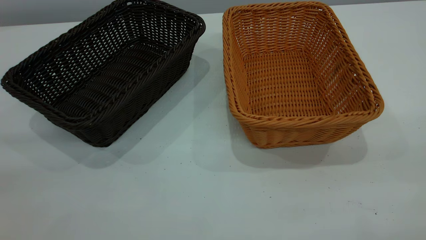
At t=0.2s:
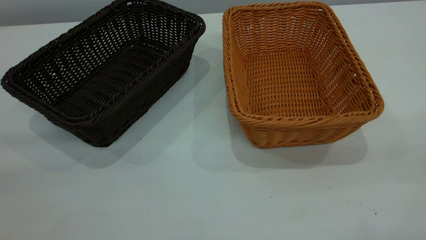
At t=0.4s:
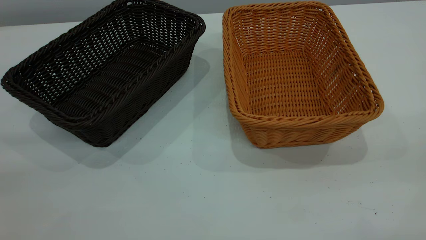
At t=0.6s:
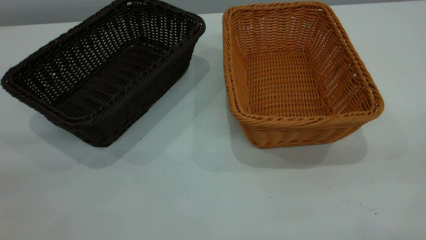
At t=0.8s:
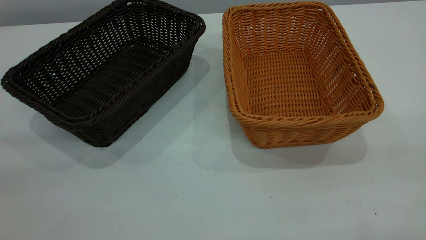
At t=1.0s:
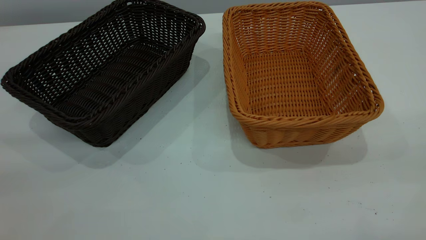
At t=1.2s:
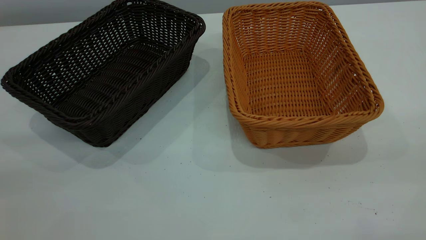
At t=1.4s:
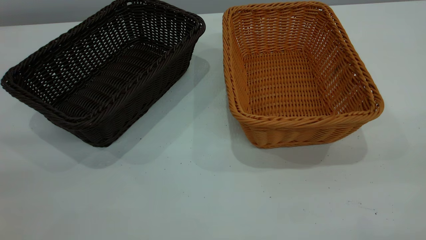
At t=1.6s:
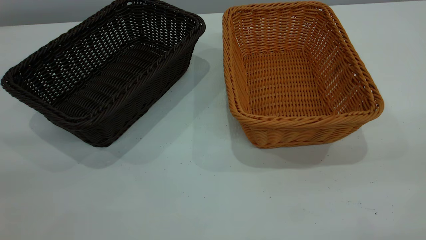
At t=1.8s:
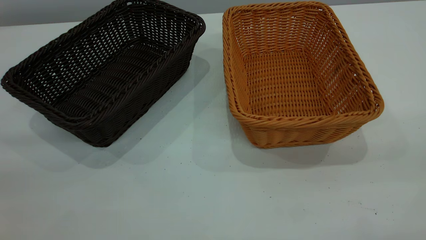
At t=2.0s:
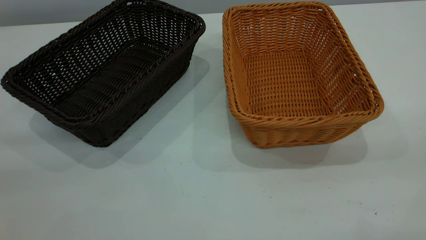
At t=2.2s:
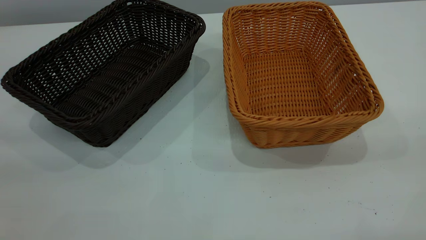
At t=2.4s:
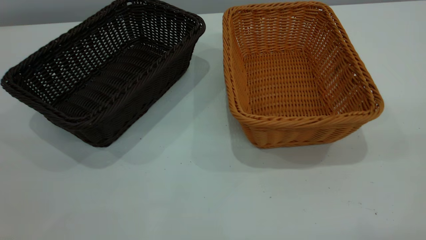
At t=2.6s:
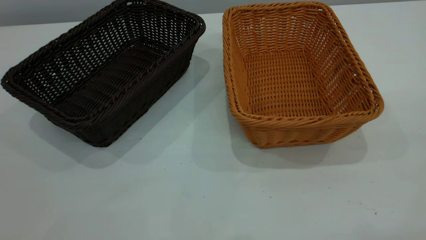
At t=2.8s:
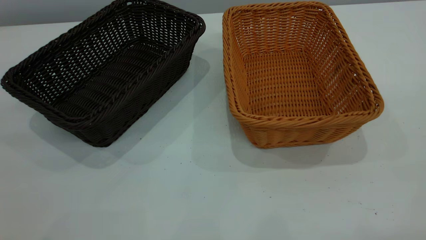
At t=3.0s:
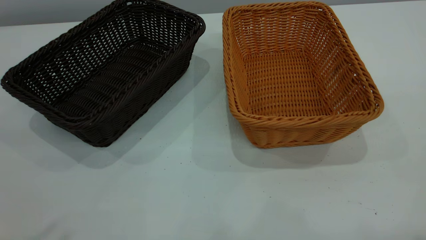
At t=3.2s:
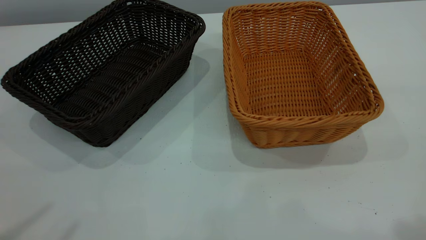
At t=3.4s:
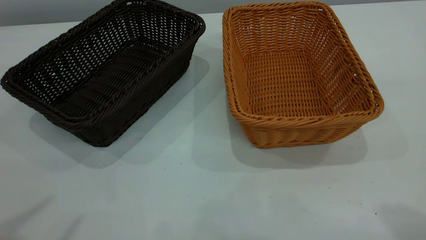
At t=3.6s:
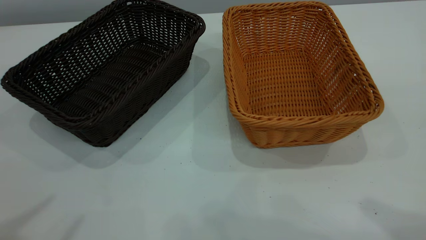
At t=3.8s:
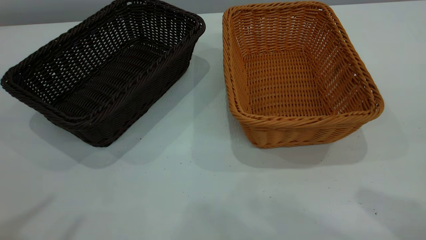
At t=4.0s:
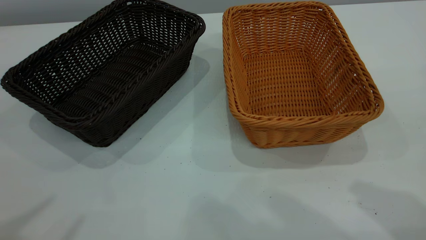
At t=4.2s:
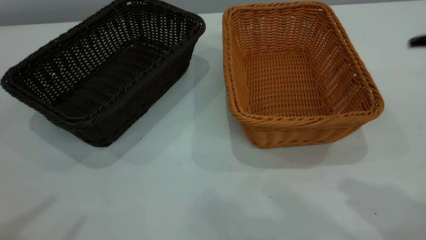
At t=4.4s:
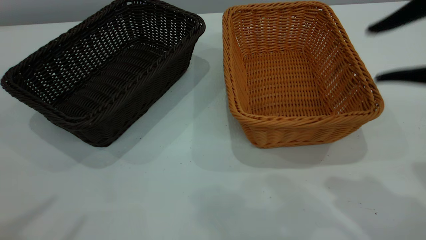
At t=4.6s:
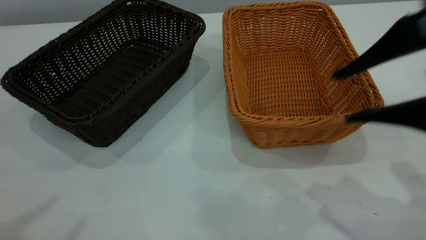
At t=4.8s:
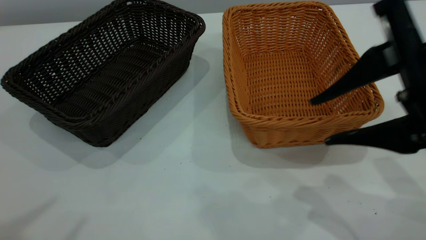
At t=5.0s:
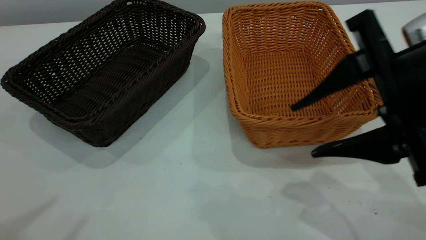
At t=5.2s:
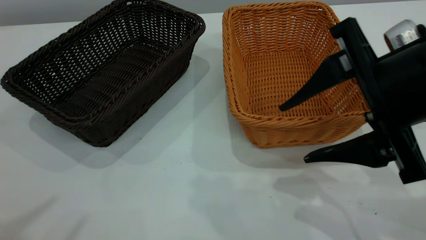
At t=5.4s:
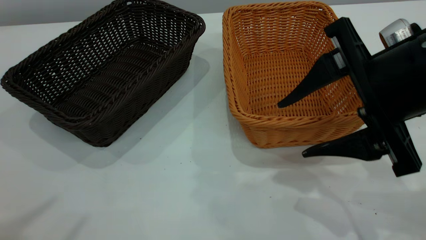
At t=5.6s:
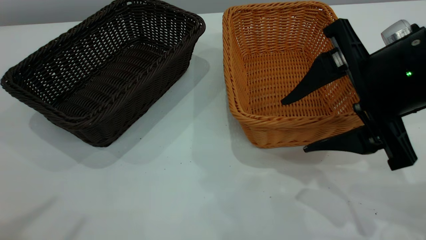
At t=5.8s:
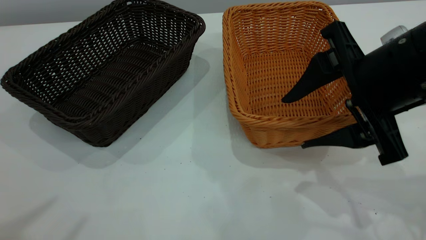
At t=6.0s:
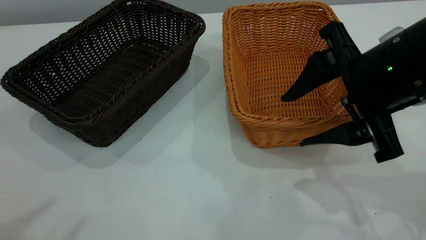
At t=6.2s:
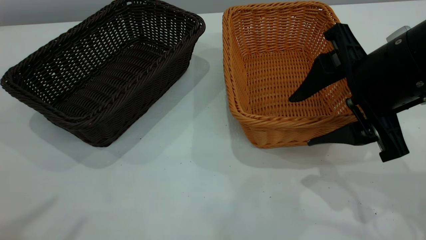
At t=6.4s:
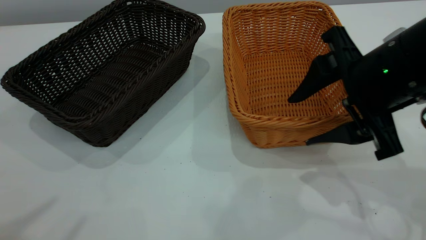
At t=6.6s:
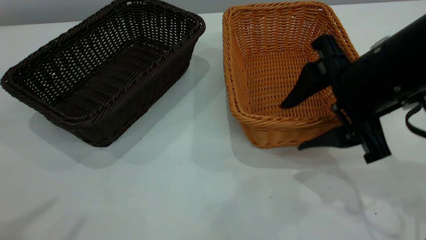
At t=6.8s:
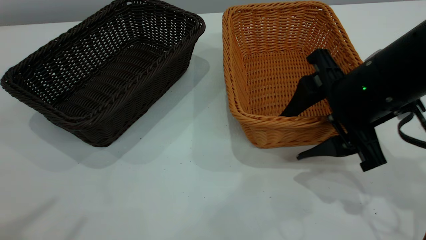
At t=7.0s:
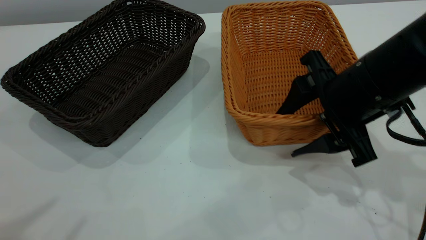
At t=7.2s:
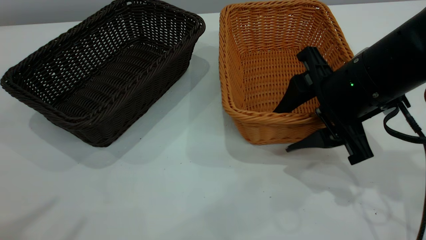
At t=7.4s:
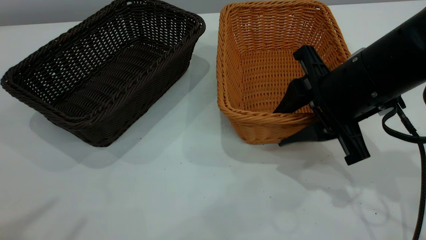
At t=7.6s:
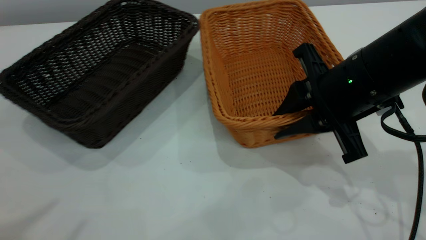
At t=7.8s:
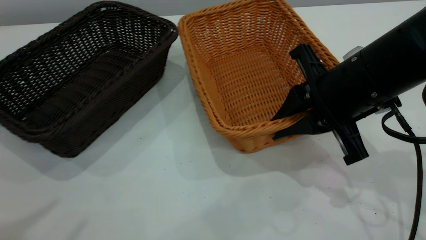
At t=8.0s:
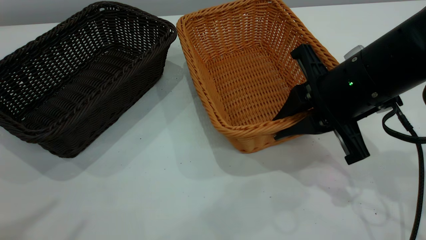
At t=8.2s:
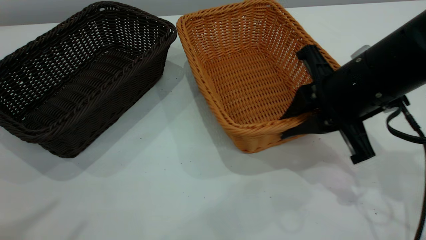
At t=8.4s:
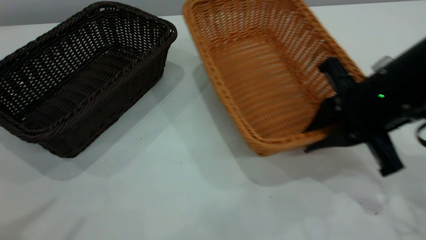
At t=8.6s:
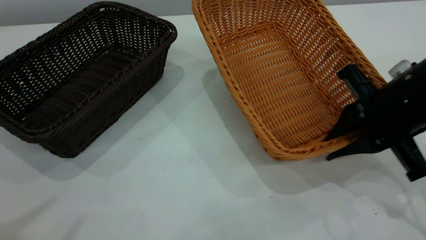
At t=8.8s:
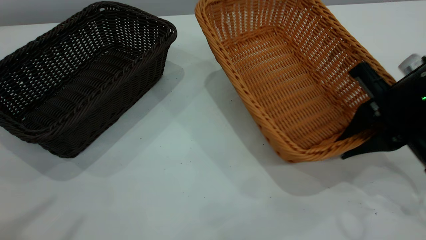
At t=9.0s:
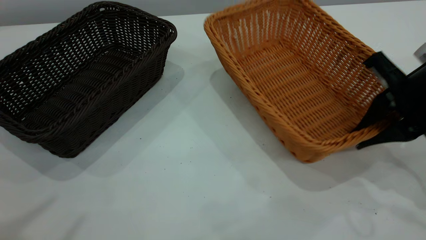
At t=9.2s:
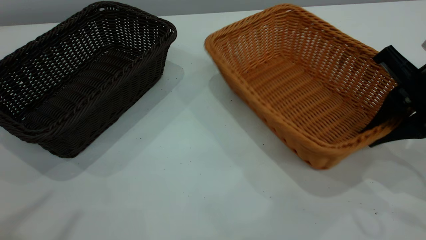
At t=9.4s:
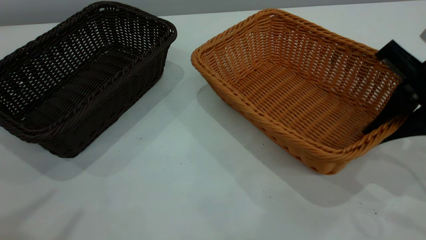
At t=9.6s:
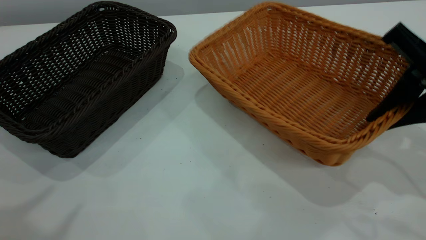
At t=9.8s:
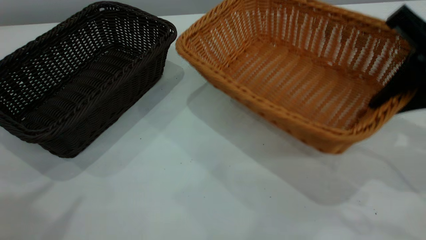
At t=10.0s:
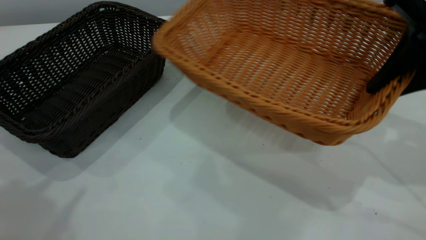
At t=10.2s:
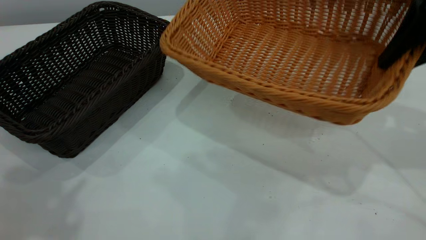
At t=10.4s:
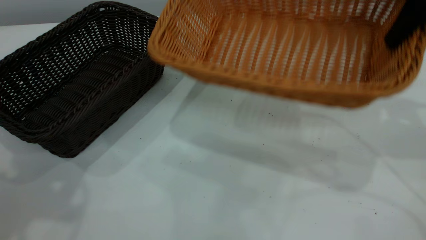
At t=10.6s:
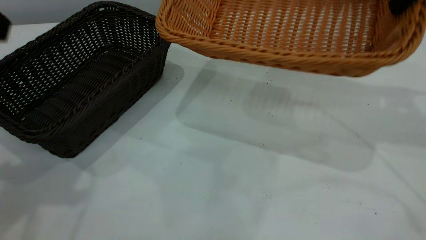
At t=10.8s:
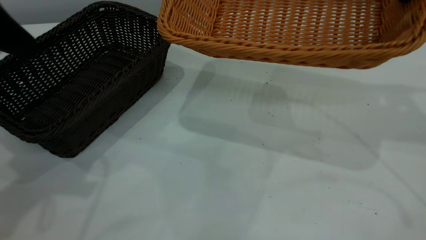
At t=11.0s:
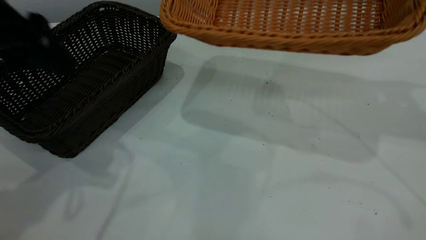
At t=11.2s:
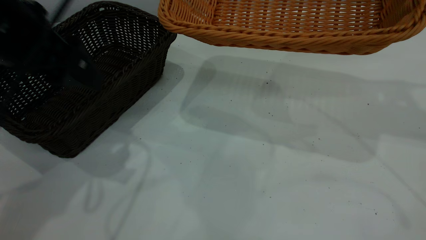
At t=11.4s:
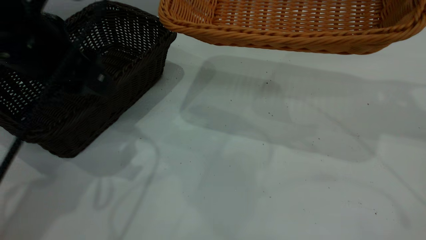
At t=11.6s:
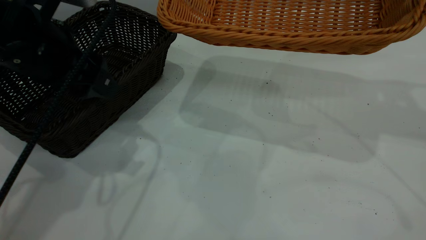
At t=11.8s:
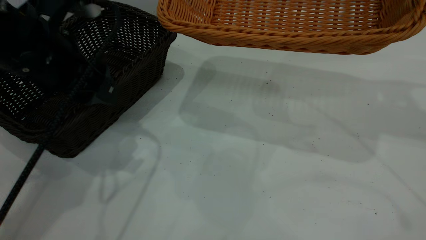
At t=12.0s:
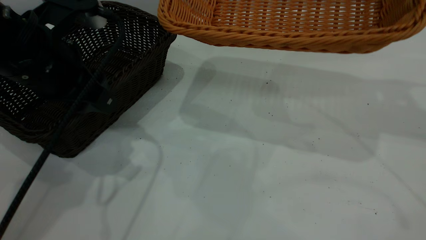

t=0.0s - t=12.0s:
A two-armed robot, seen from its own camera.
Task of the whole recording: the left gripper grasp the black basket and place it in the center of the table, the right gripper grasp the brown basket and place it inside the black one.
Step, t=0.0s - t=9.8s: Pick up the light basket with the right gripper.
t=0.0s - t=1.6s: Both grippers stay put.
t=3.0s - t=4.4s: The right gripper shifts approximately 15 cm downward and forward.
t=4.4s - t=6.0s: The right gripper shifts some 10 cm downward and forward.
t=6.0s - t=7.6s: The right gripper closes its fingers.
t=7.6s - t=9.0s: The right gripper heads to the right, covering about 10 cm.
t=9.0s - t=10.4s: The right gripper heads upward, covering roughly 15 cm. The left gripper shifts some 10 cm forward and downward.
t=10.4s - t=12.0s: The right gripper changes place by approximately 5 cm, while the left gripper is displaced downward, forward and to the right by approximately 20 cm.

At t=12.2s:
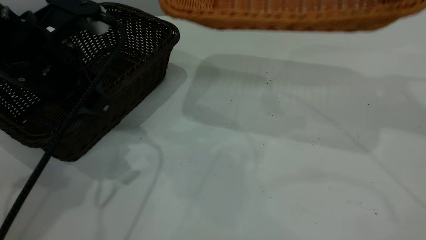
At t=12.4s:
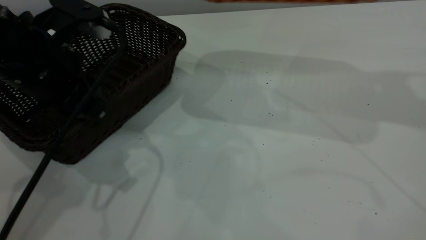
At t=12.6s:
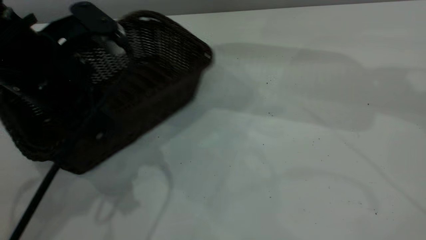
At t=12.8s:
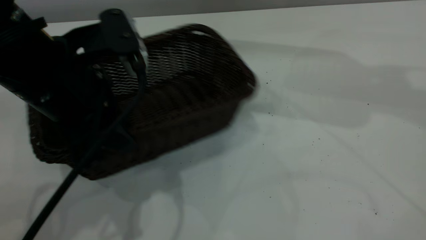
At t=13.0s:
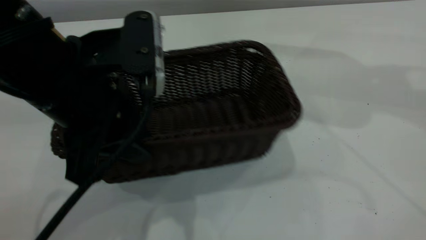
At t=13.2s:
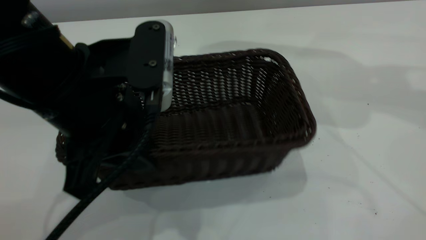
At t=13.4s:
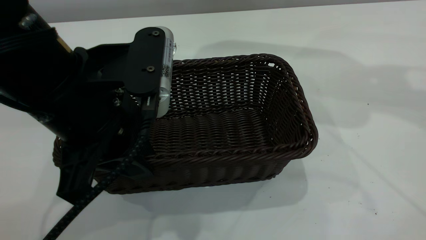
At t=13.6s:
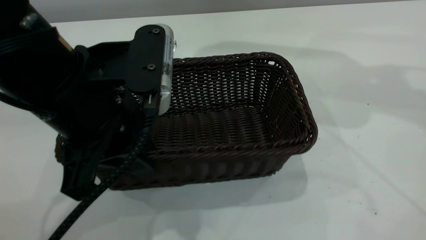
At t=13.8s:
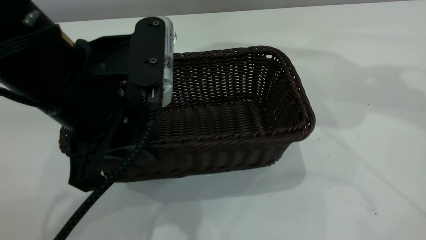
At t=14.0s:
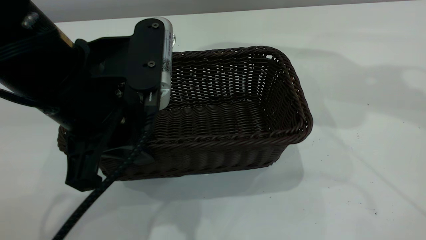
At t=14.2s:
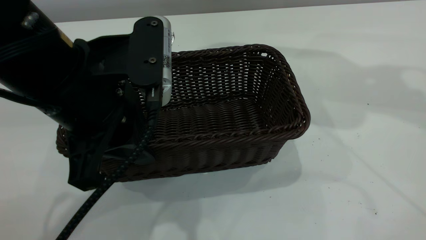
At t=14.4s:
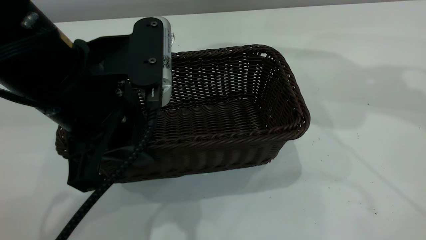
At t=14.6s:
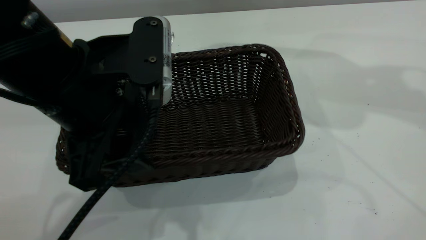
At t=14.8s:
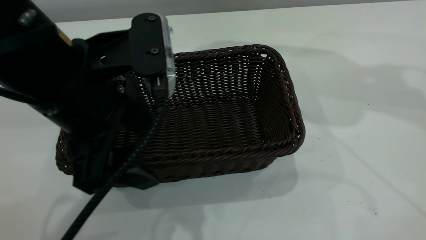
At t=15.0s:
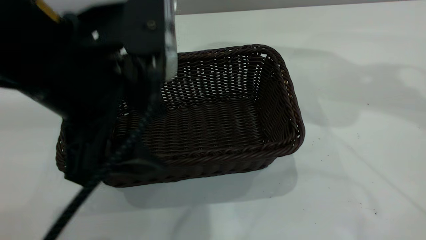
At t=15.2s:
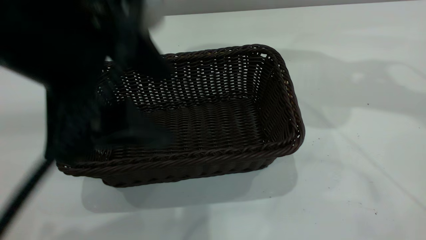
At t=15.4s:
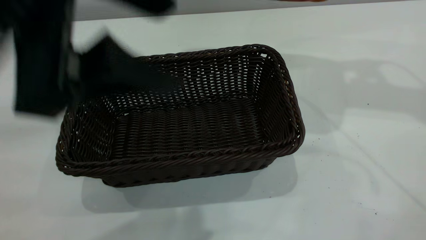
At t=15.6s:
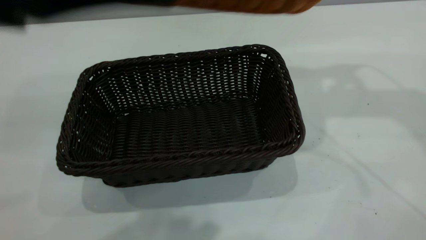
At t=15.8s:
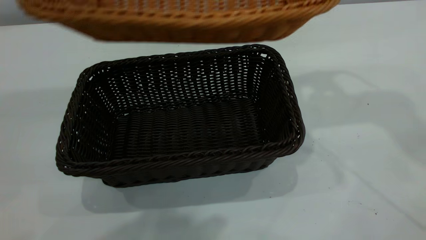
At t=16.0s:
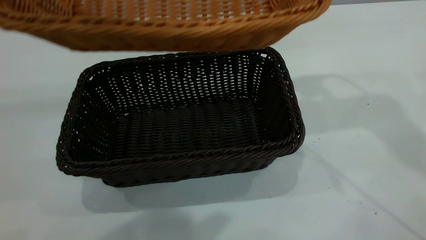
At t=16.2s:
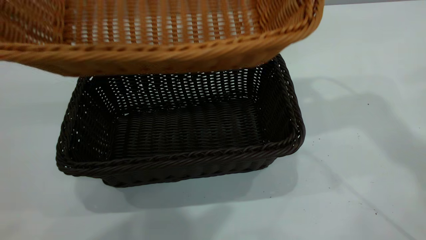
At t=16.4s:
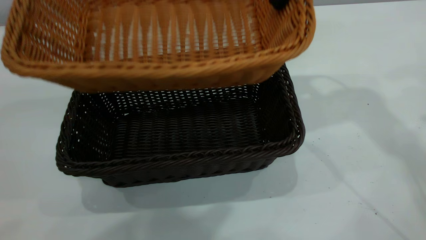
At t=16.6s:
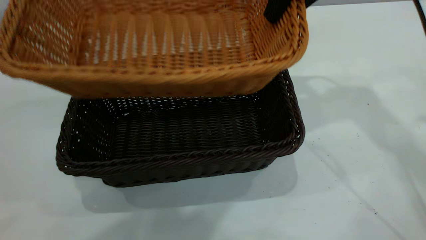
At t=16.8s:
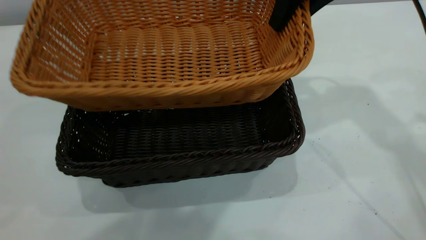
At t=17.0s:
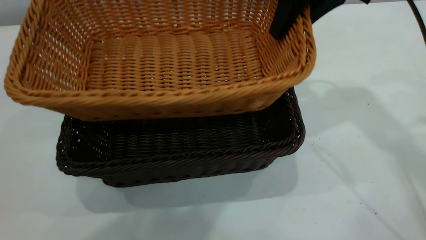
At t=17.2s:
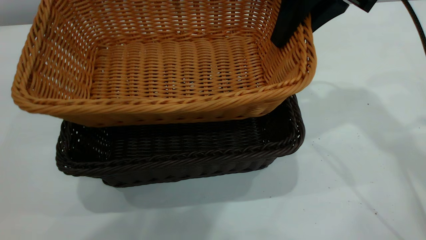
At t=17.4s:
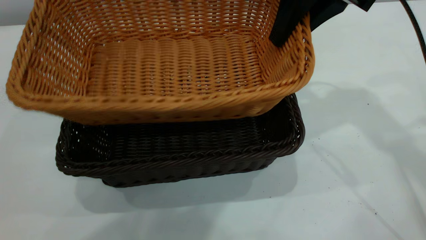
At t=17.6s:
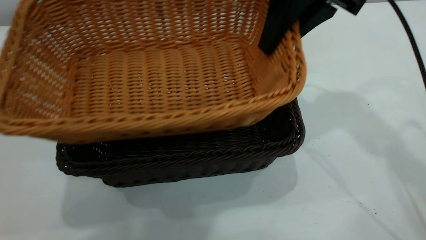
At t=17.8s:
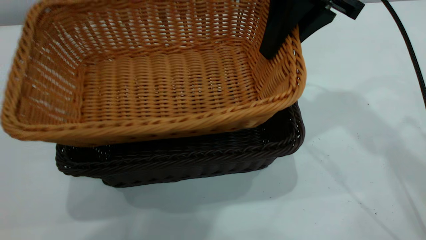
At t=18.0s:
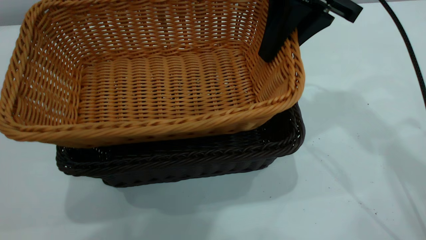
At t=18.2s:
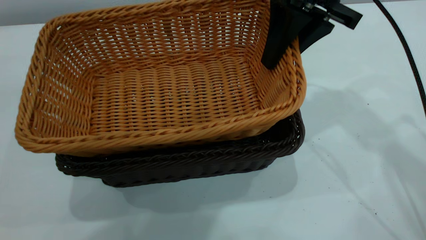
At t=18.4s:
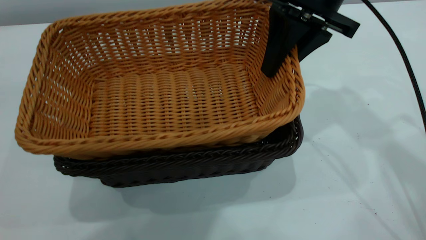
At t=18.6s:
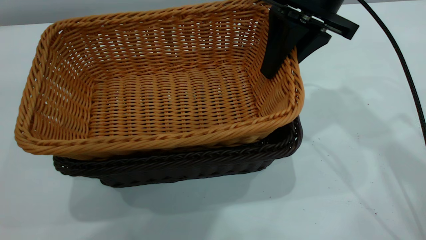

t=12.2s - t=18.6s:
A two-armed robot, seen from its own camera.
Task of the whole recording: the left gripper grasp the black basket and place it in the center of the table, the right gripper grasp the brown basket and place it inside the black one.
Step, t=12.2s - t=15.2s: Move the dark basket to the center of view.
t=12.2s - t=13.8s: The left gripper moves to the right and backward, some 10 cm. Meanwhile the right gripper shifts approximately 5 cm upward.
t=13.8s - t=15.4s: The left gripper is displaced upward and backward by some 15 cm, and opens up; the right gripper travels downward by roughly 5 cm.
t=15.4s - t=17.0s: The left gripper shifts about 10 cm upward; the right gripper shifts approximately 10 cm to the left and downward.
